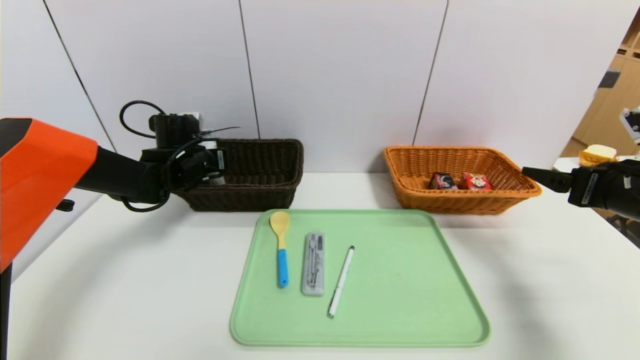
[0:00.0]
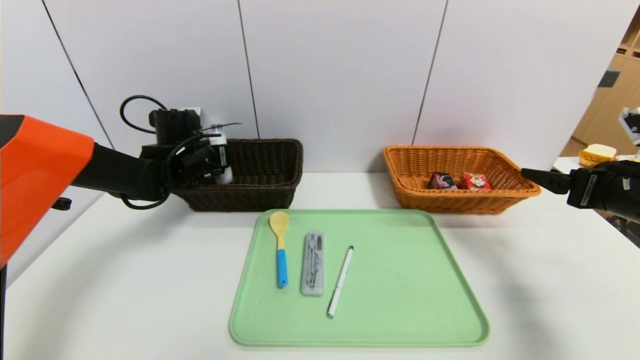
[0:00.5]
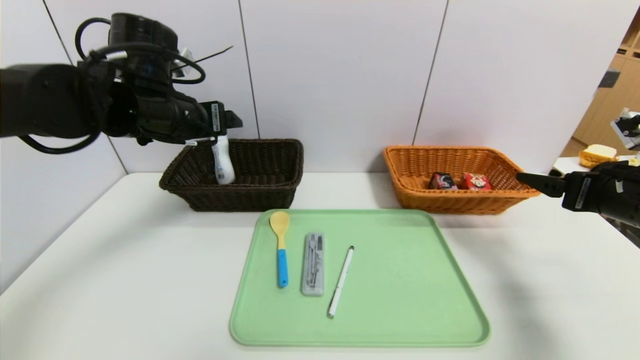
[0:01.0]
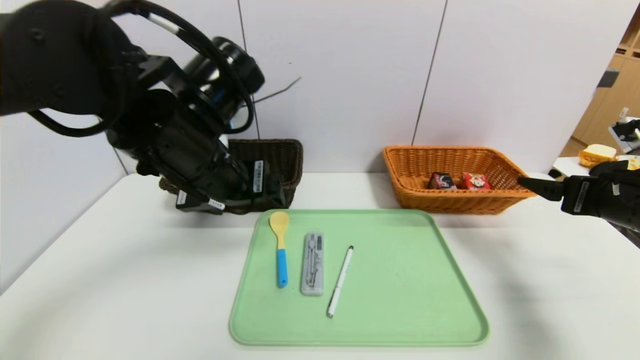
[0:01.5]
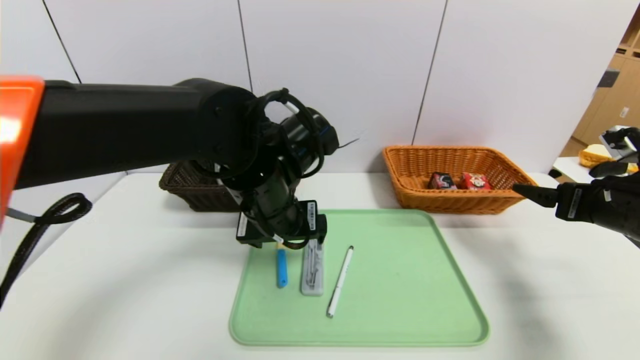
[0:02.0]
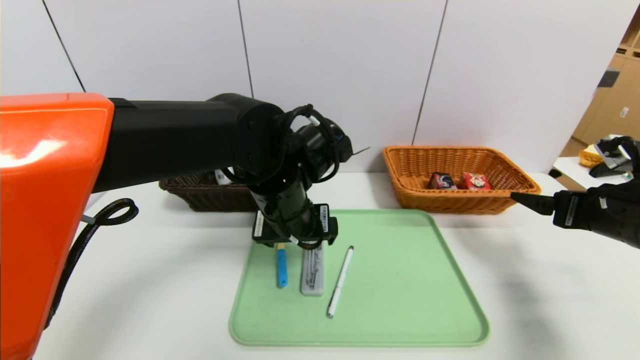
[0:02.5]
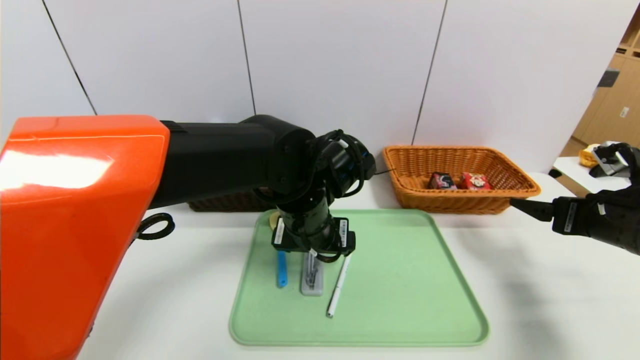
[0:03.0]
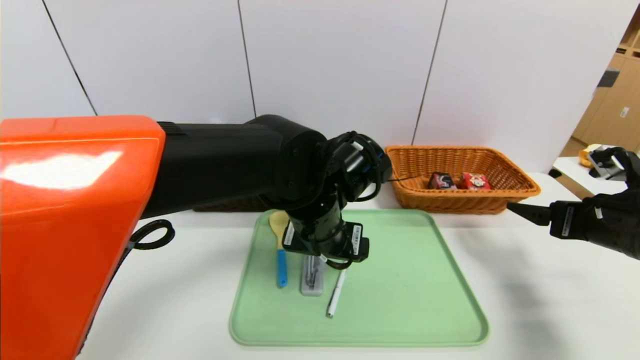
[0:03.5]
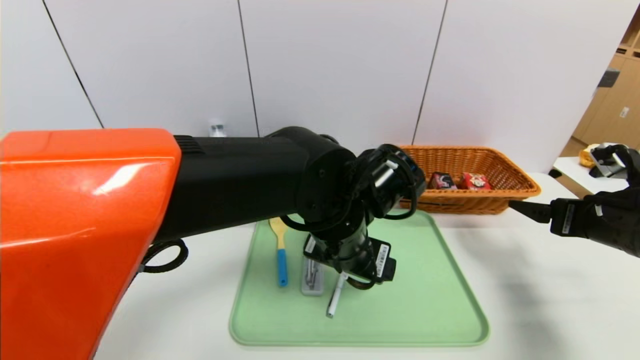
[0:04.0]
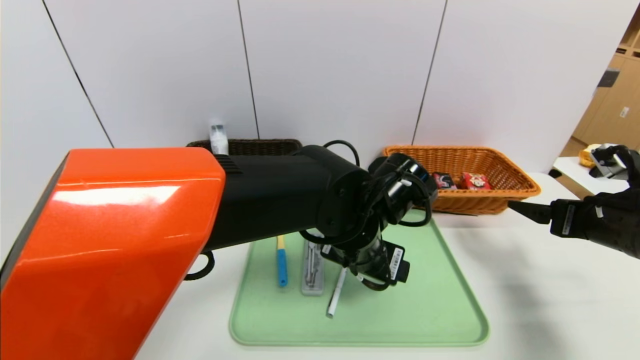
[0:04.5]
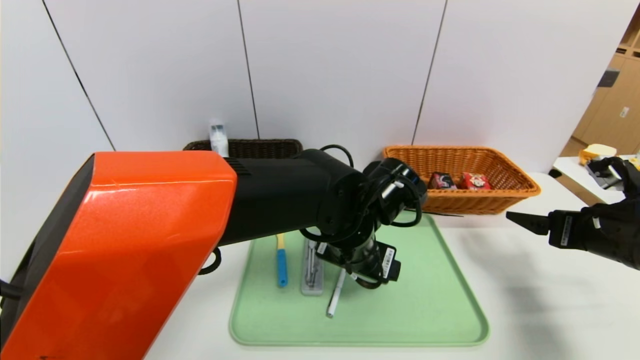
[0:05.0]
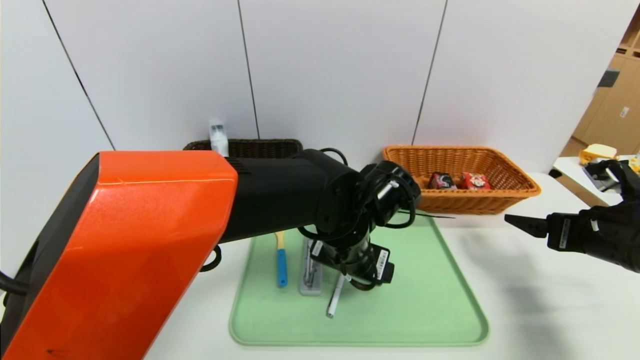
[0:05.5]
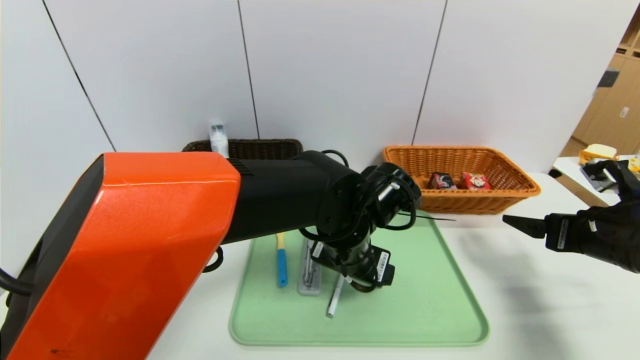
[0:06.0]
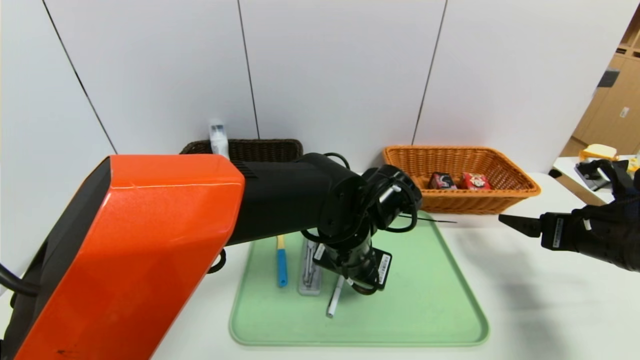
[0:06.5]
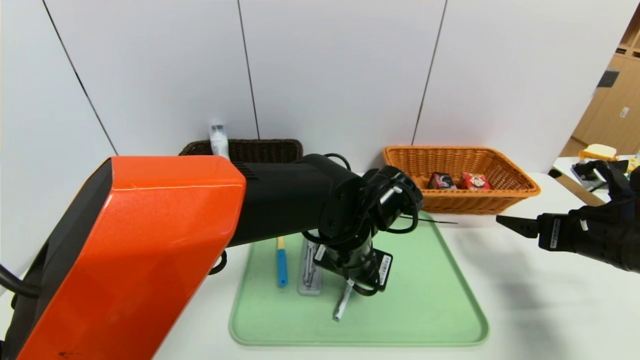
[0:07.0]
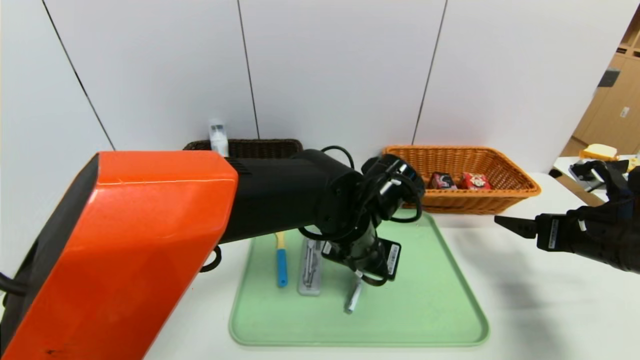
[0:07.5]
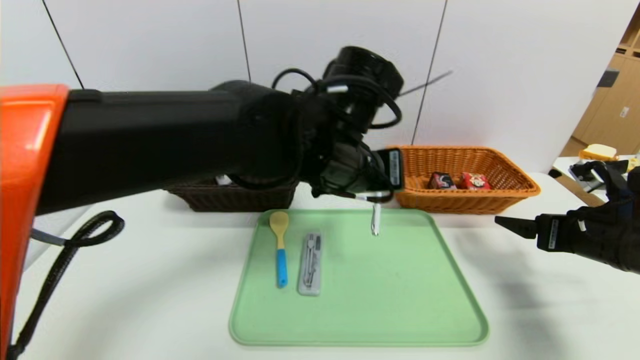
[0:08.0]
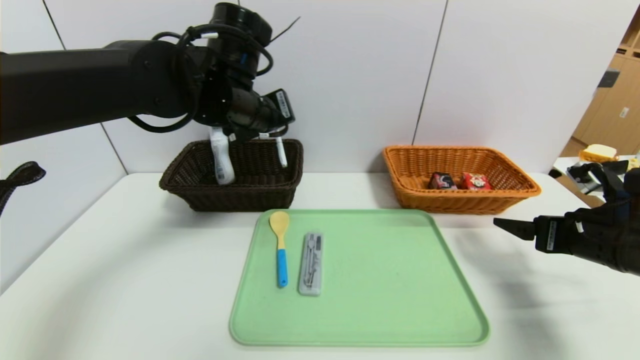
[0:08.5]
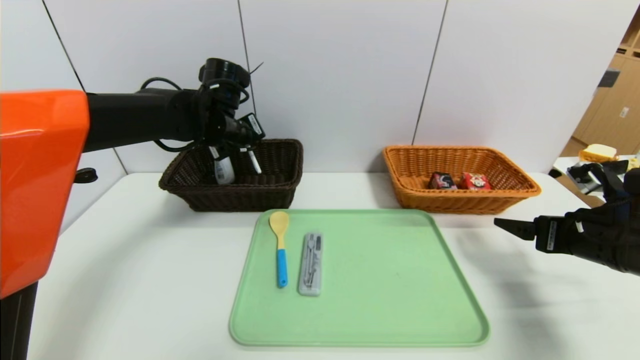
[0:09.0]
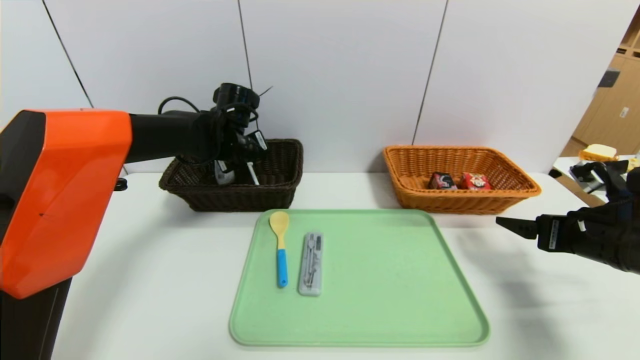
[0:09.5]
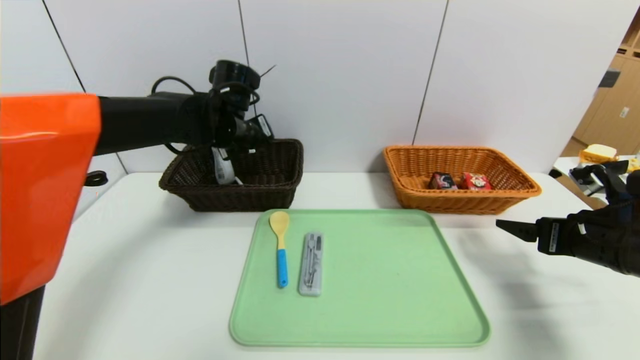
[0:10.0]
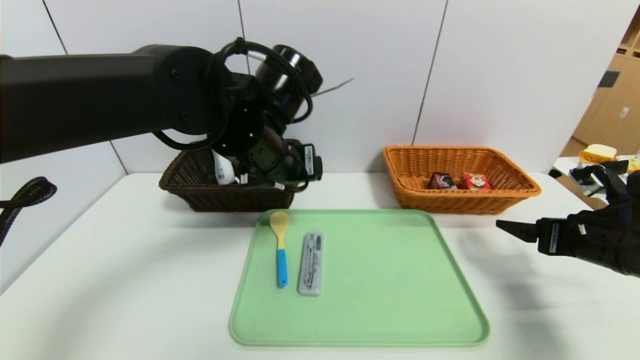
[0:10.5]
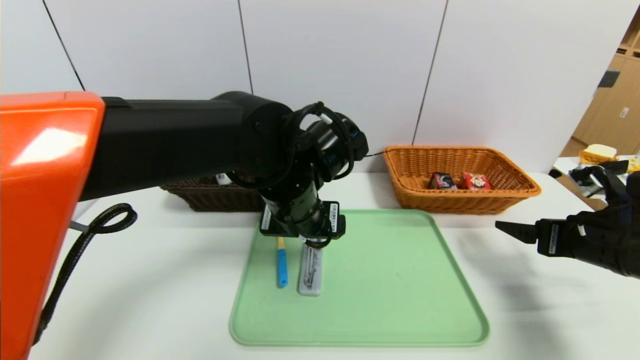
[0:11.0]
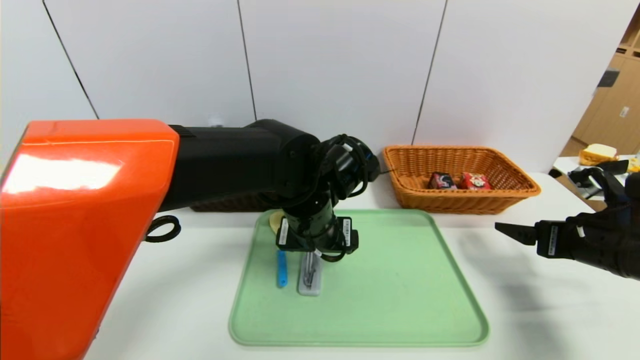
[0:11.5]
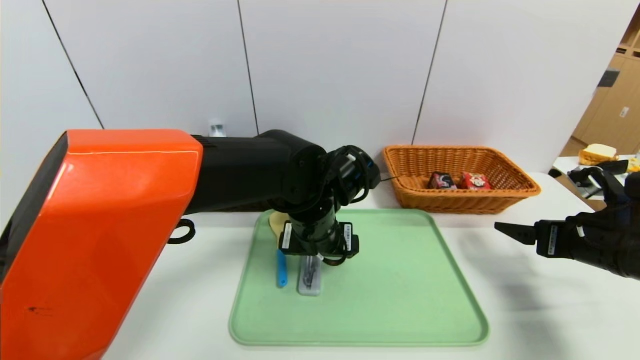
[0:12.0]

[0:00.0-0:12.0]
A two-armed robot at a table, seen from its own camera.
Task of the whole recording: place the food in the right basket with the right gripper, and place the non food items in the left basket with the left gripper.
Step, 0:01.5 to 0:10.5: Grasp the ballpoint pen and put it in the left basket.
0:00.0 to 0:02.0: The left gripper travels to the right and backward by some 25 cm, and opens.
0:02.0 to 0:04.0: The left gripper is displaced to the right by about 10 cm.
0:06.0 to 0:08.0: The left gripper heads upward, covering about 10 cm, and closes its fingers.
0:08.0 to 0:10.0: The left gripper travels to the left and forward by roughly 20 cm, and opens.
0:10.0 to 0:12.0: The left gripper goes some 20 cm to the right, backward and downward.

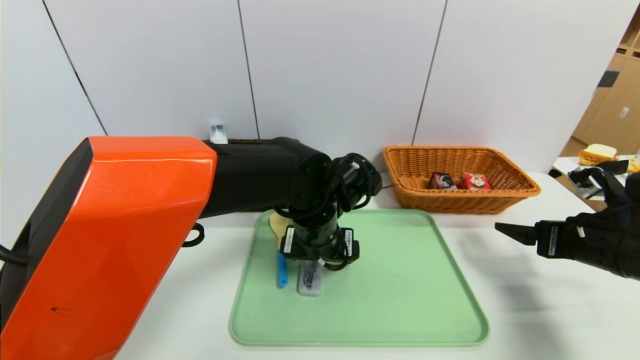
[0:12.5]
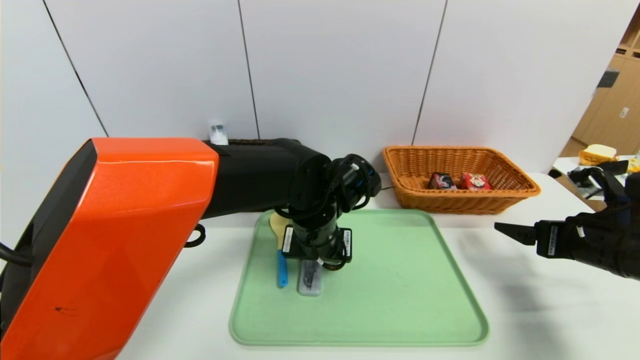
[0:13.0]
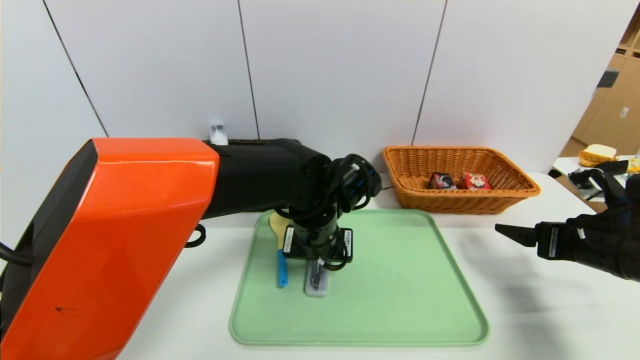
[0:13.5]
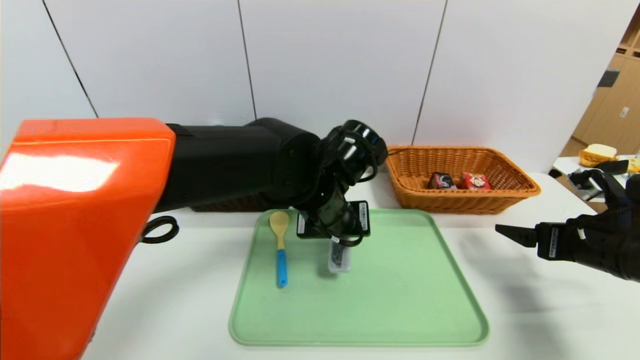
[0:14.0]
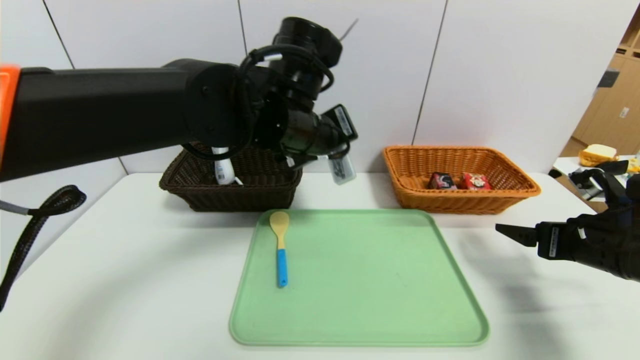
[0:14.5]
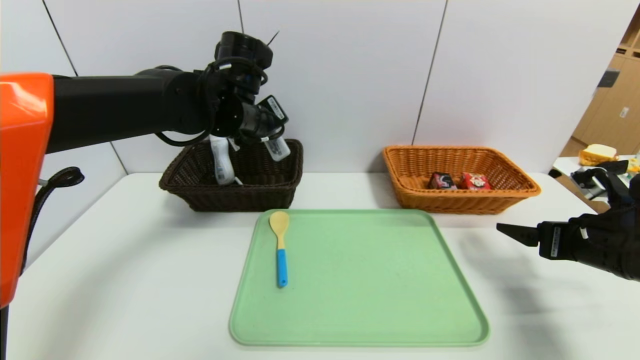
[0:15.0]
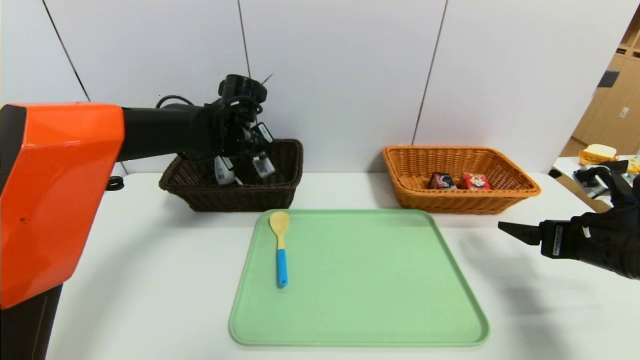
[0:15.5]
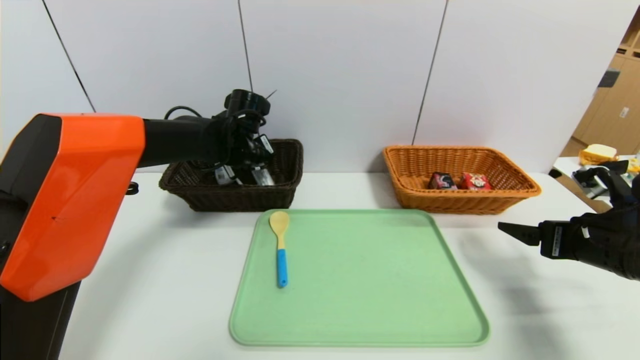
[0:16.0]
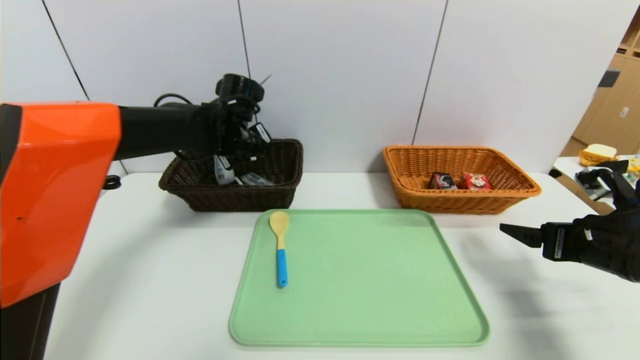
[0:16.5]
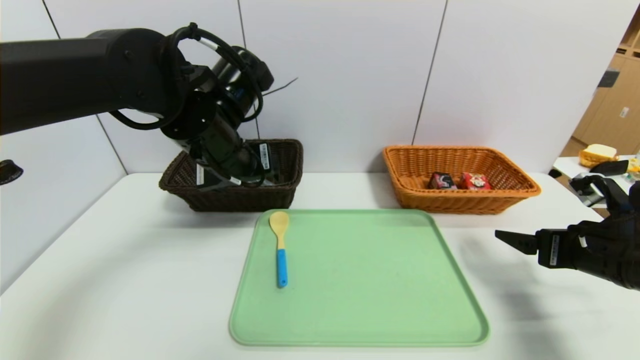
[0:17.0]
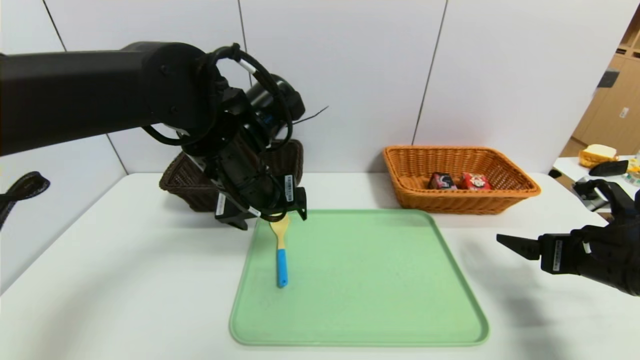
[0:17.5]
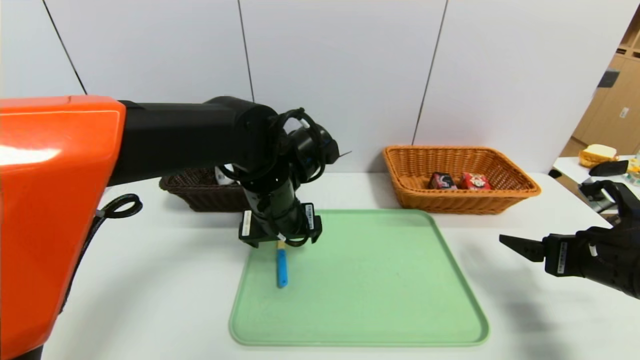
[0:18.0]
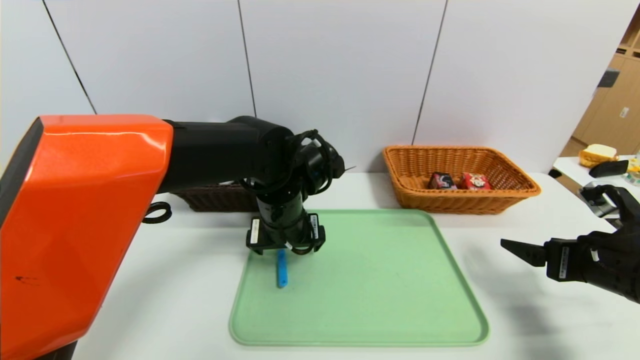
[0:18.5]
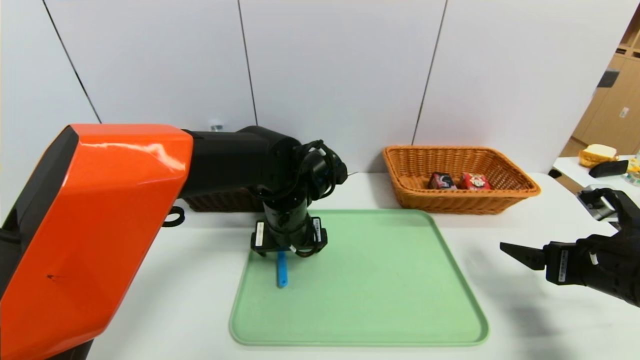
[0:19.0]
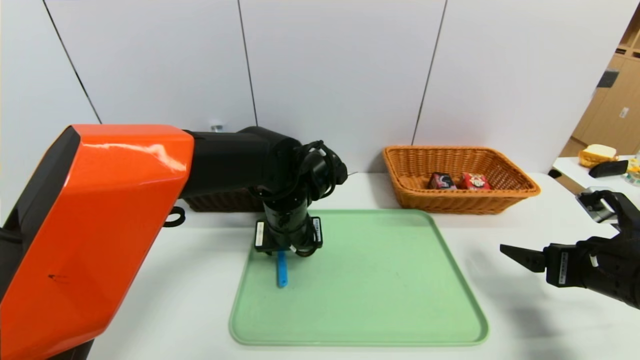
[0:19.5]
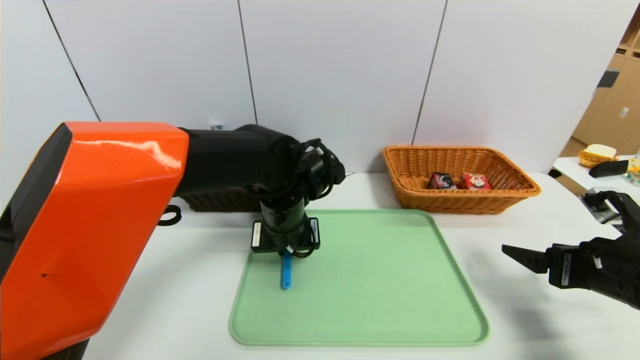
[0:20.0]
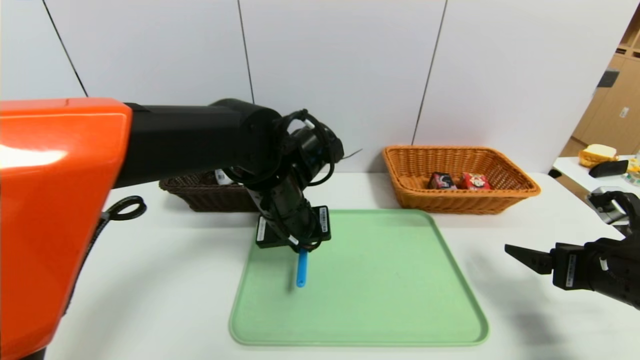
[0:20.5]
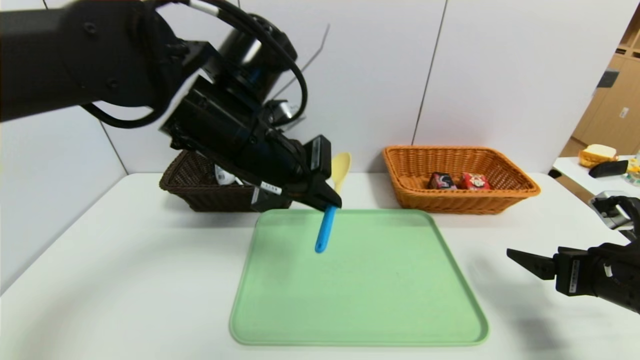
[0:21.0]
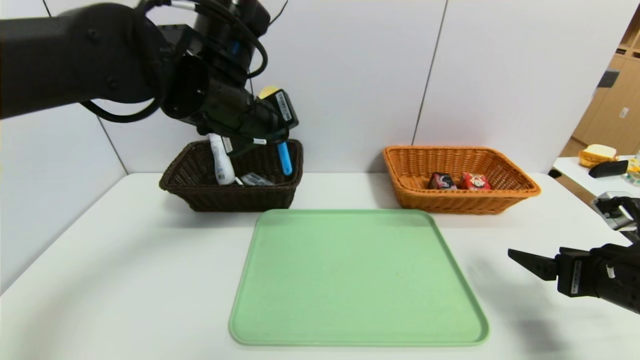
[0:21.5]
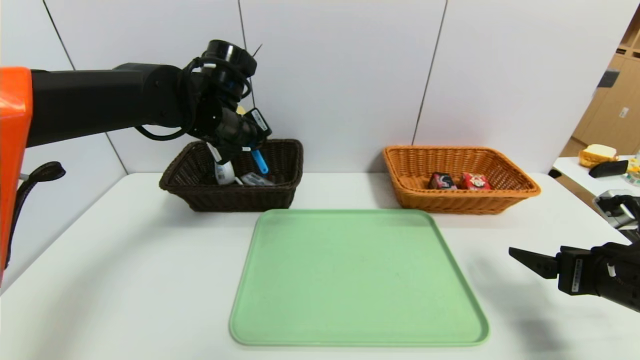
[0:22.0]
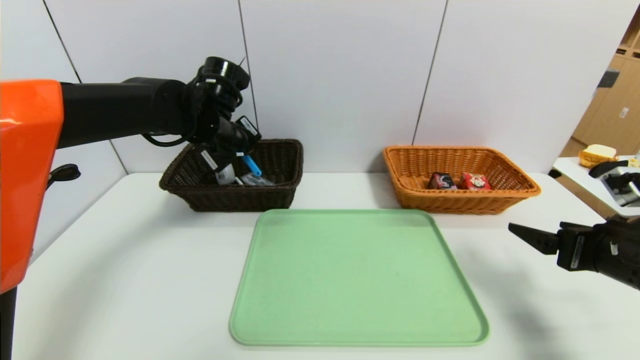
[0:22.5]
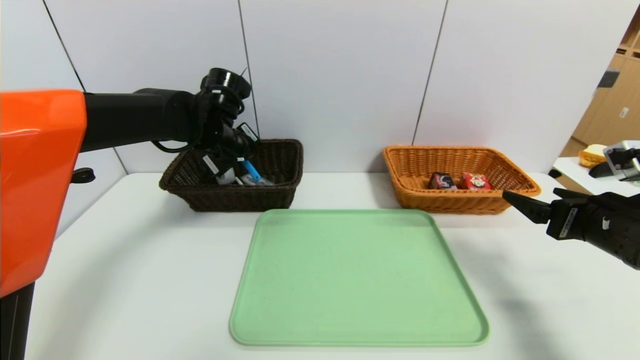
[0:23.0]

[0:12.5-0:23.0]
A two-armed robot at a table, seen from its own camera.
Task of the whole recording: place the food in the right basket with the right gripper, and place the non food items in the left basket with the left gripper.
Step, 0:12.5 to 0:17.0: Grasp the compass and put it in the left basket.
0:12.5 to 0:14.5: The left gripper moves upward, about 15 cm, and closes its fingers.
0:14.5 to 0:16.5: The left gripper is displaced forward, to the left and downward by roughly 15 cm, and opens.
0:16.5 to 0:19.0: The left gripper heads backward, to the right and downward, covering roughly 15 cm.
0:19.0 to 0:21.0: The left gripper heads upward, covering some 15 cm, and closes its fingers.
0:21.0 to 0:23.0: The left gripper travels forward, downward and to the left by about 20 cm.
